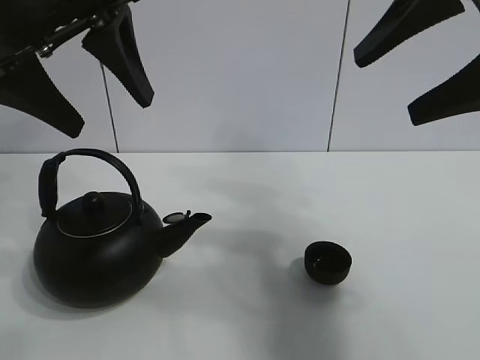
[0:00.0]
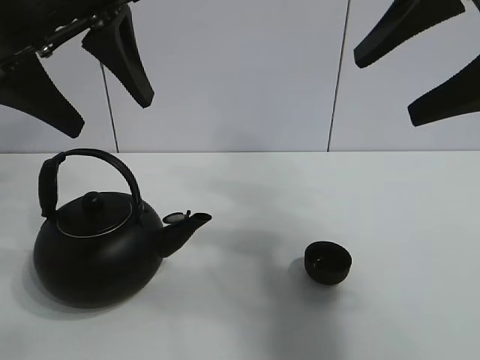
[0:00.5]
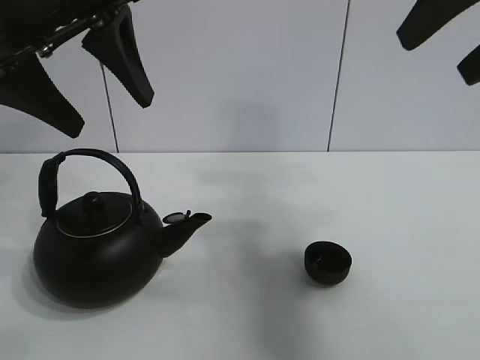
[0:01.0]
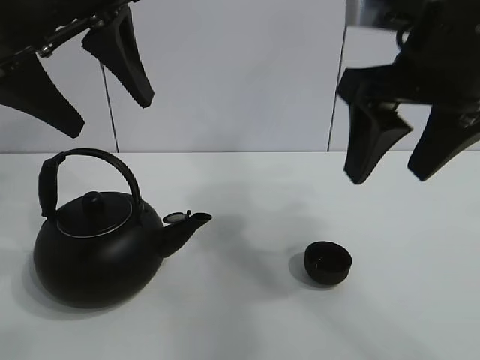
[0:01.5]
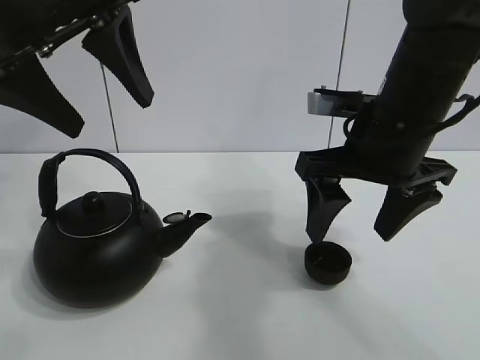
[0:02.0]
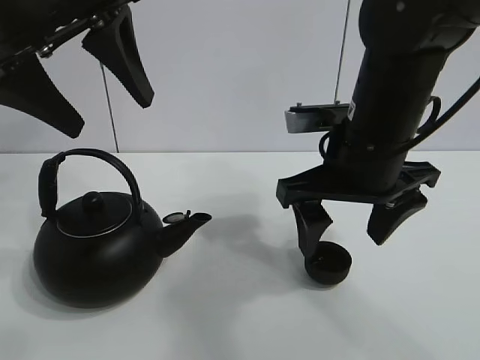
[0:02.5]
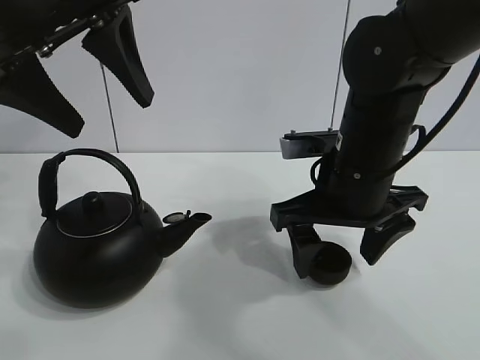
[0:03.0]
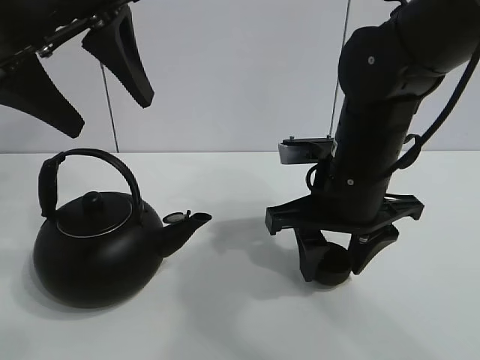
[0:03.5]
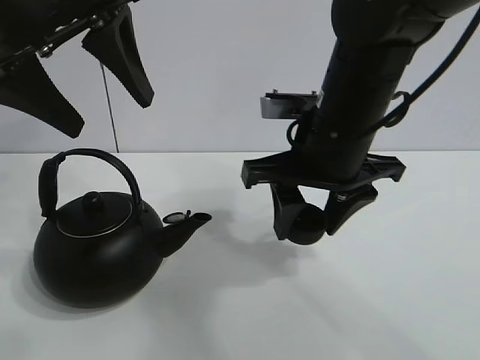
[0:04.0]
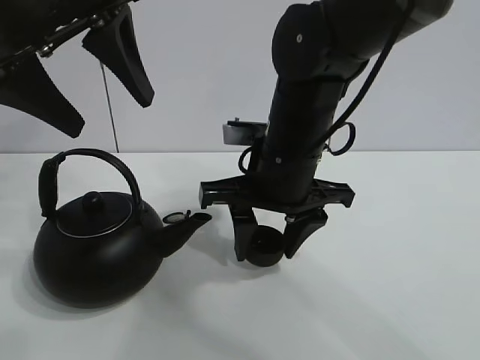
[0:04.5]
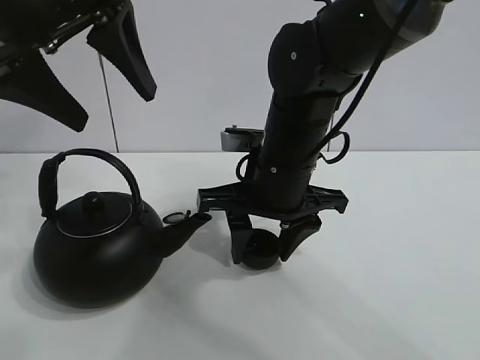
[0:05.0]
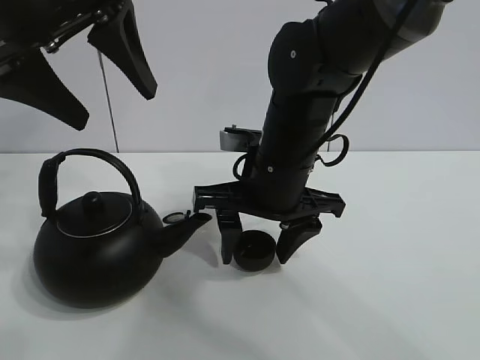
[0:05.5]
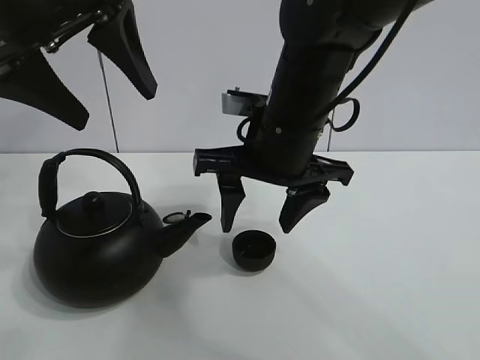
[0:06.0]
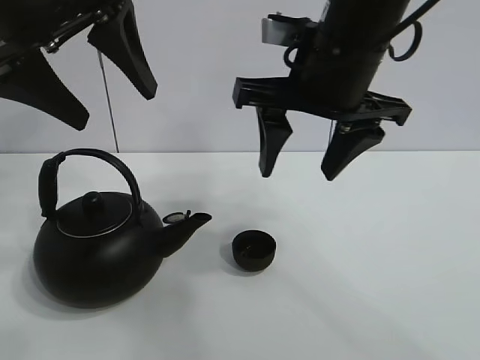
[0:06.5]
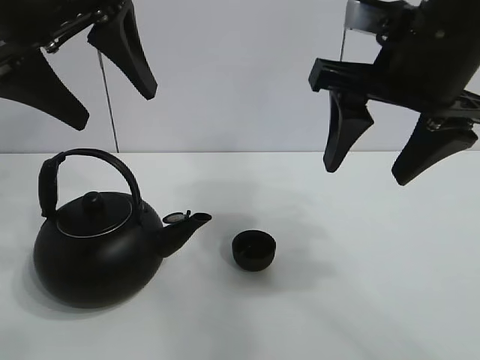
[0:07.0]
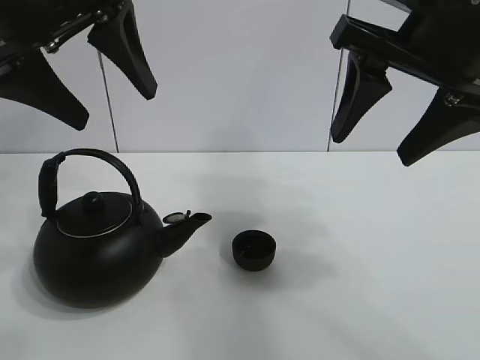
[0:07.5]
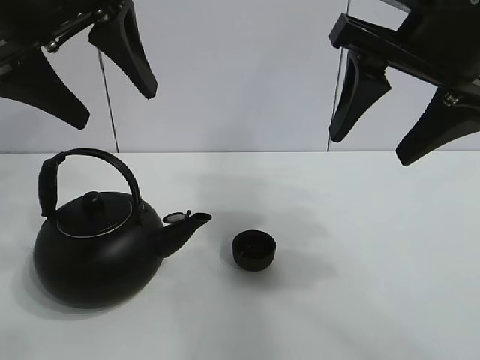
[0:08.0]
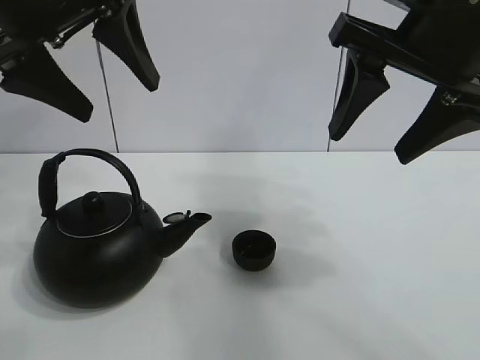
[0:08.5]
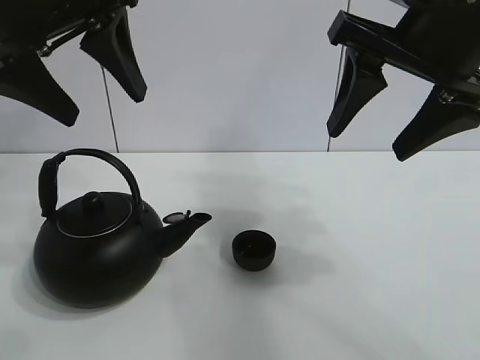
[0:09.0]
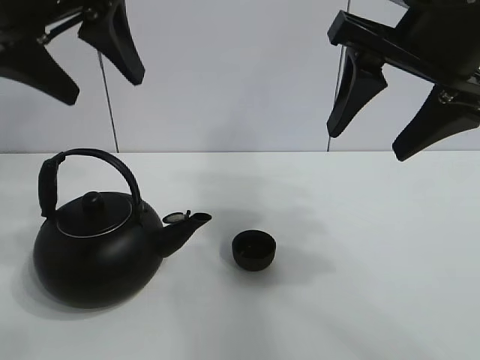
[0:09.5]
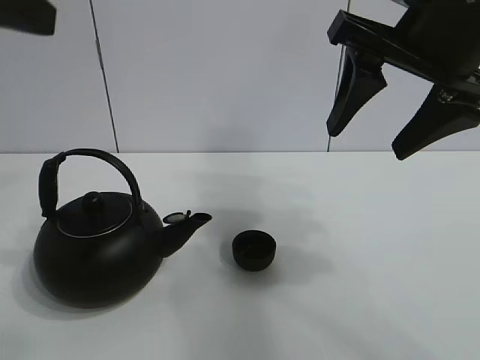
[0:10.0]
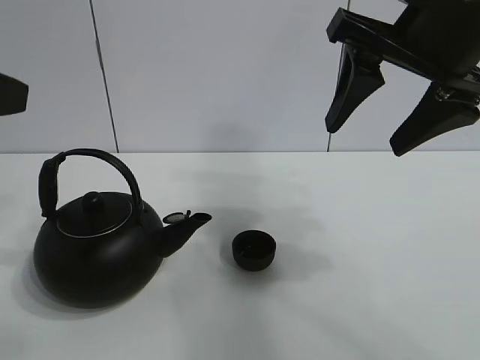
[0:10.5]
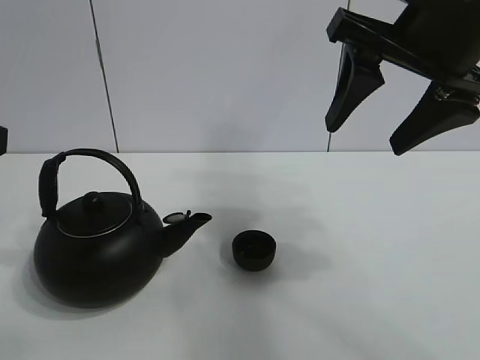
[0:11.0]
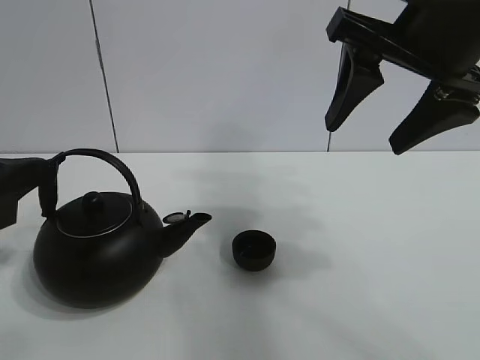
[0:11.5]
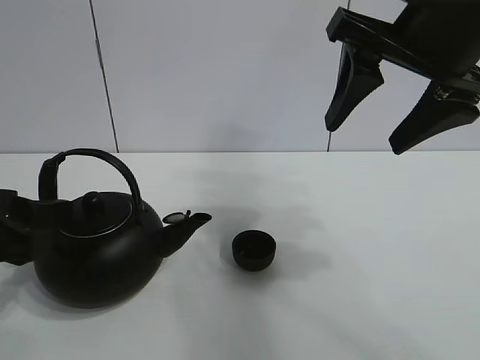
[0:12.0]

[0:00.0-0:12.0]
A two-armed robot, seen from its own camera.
Task of the whole recording: pour tea into the teacup.
Step, 0:00.0 to 0:03.5: Pick up the teacup with the right gripper.
Step, 0:04.0 to 0:05.5: Place the teacup in the center of view with the right gripper.
0:02.0 to 0:04.0: The right gripper travels to the left by roughly 5 cm, and closes up.
0:04.0 to 0:06.0: The right gripper opens its fingers.
0:06.0 to 0:08.0: The right gripper travels to the right, upward and backward by approximately 15 cm.
0:08.0 to 0:10.0: The left gripper moves backward and to the left, some 10 cm.
0:10.0 to 0:12.0: The left gripper goes some 20 cm downward.

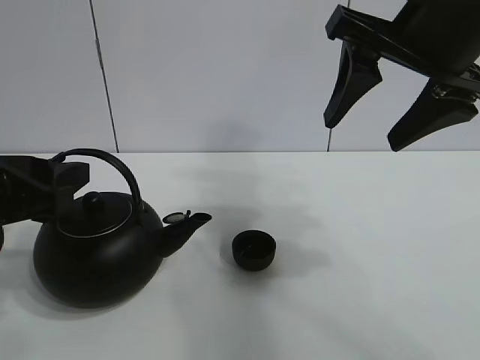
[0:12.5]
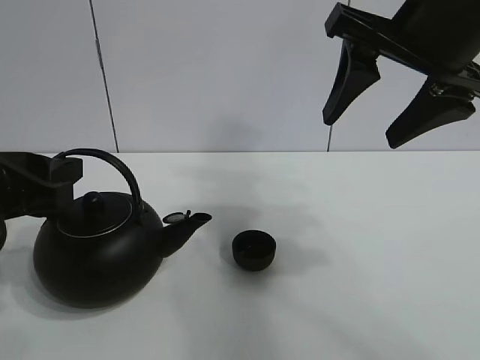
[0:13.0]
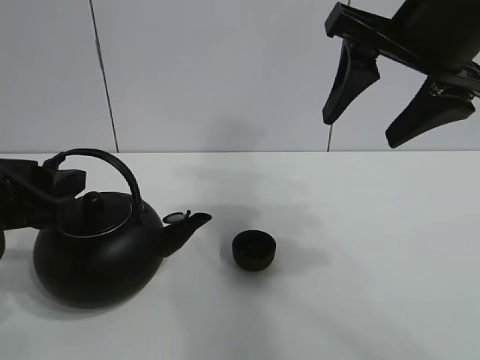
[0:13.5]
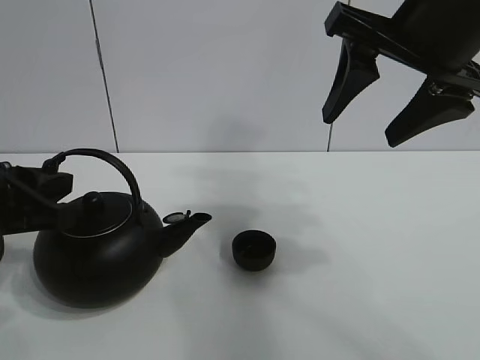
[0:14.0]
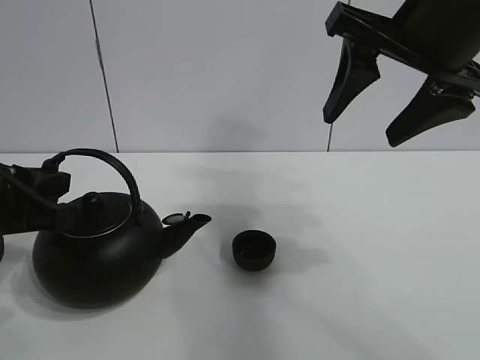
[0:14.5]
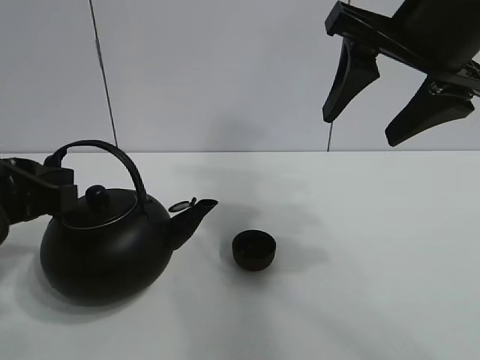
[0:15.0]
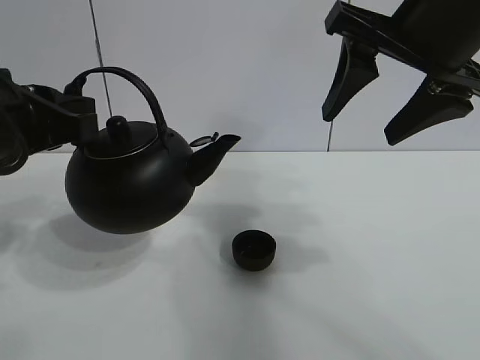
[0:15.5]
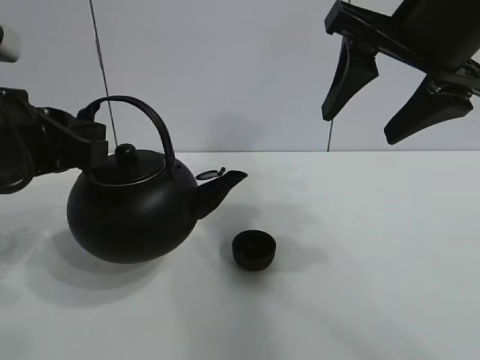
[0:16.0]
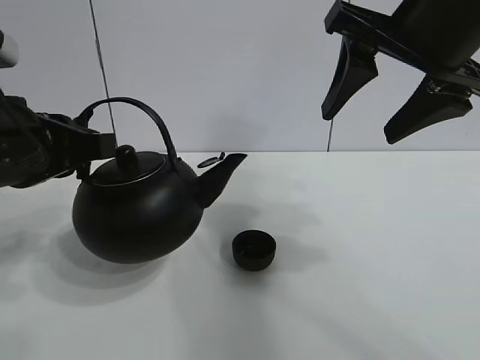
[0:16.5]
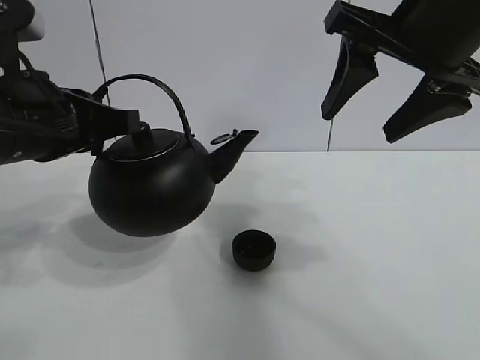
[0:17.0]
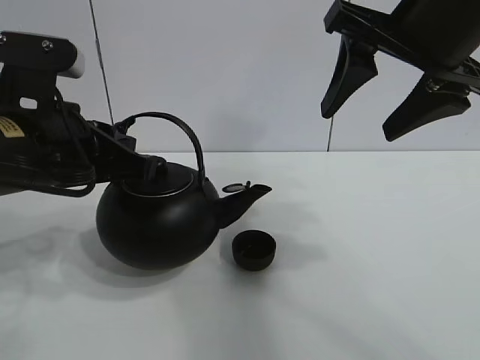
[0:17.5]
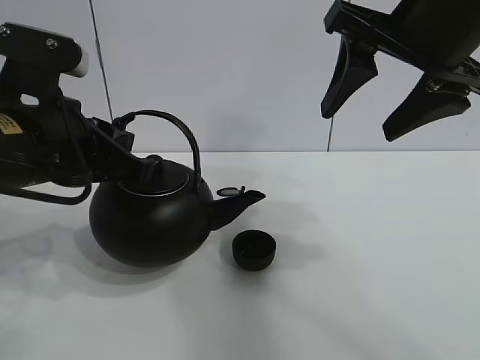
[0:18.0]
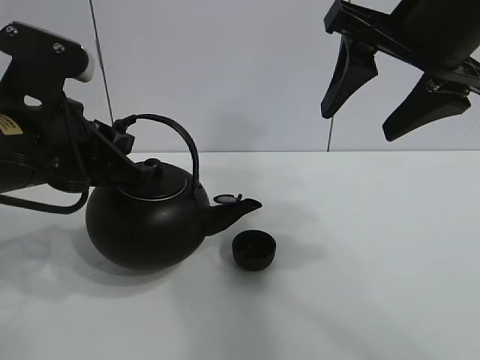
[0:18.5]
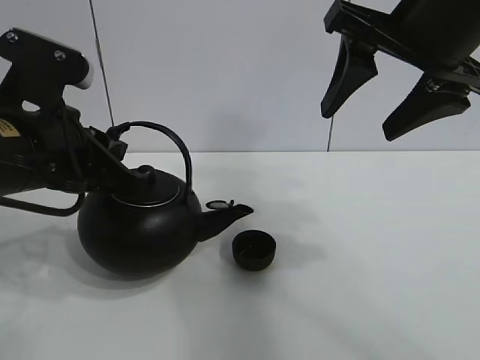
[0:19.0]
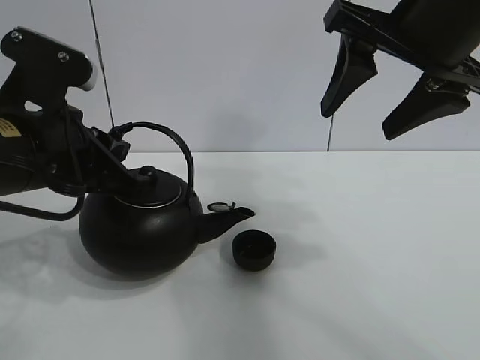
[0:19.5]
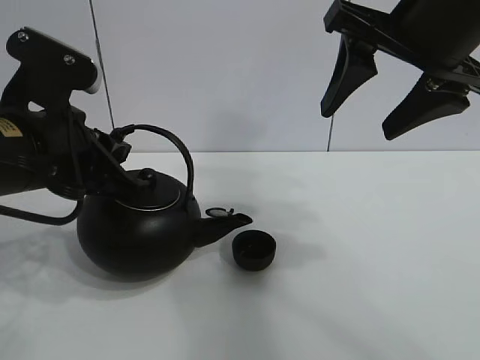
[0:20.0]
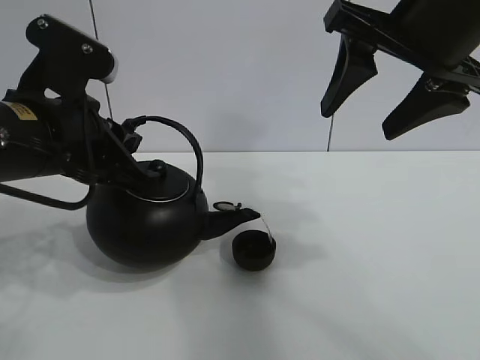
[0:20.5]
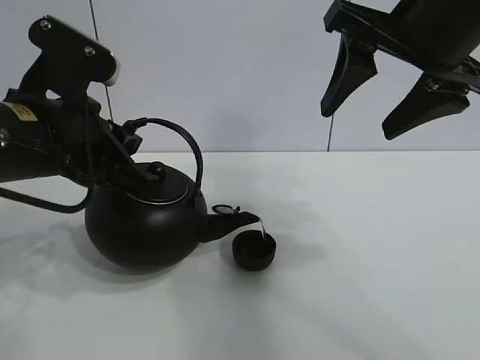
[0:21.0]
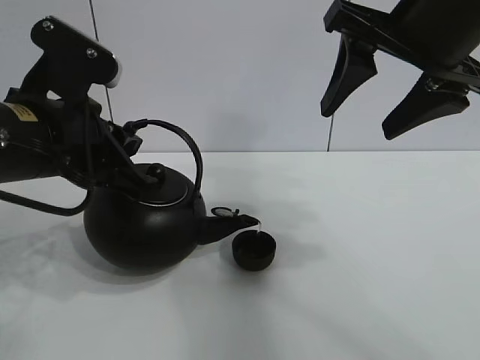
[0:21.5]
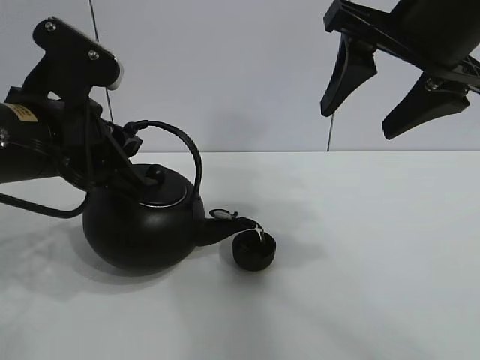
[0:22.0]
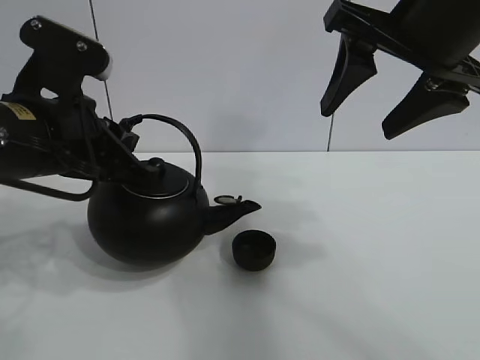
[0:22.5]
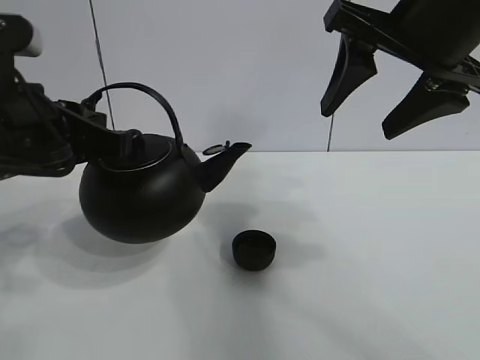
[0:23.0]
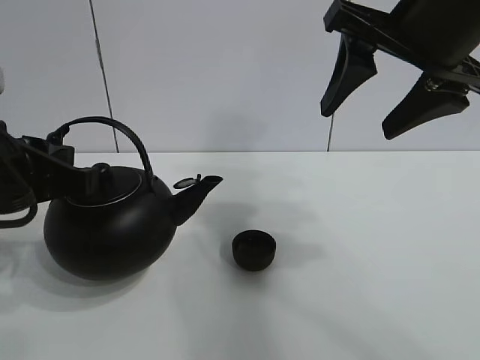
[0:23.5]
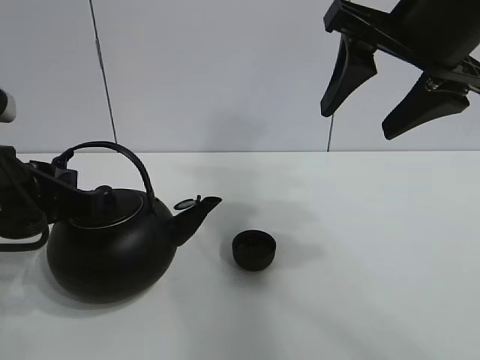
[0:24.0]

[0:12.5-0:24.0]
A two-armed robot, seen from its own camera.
Task of the whole recording: pour tea into the teacup.
Step, 0:12.5 to 0:15.0: Pick up the teapot with the left gripper.
Step, 0:15.5 to 0:22.0: Pour tea into the teacup with the left gripper.
0:12.5 to 0:14.5: The left gripper closes up.
0:14.5 to 0:16.5: The left gripper moves approximately 5 cm.
0:18.5 to 0:22.0: The grippers make only small movements.
0:22.0 to 0:24.0: The left gripper moves roughly 5 cm.

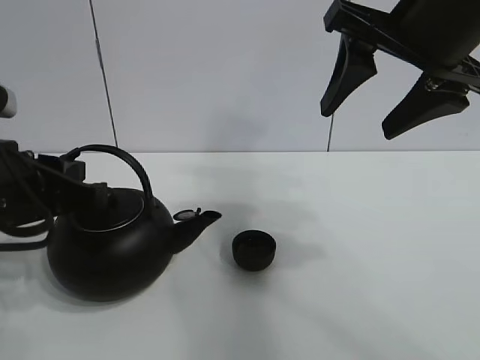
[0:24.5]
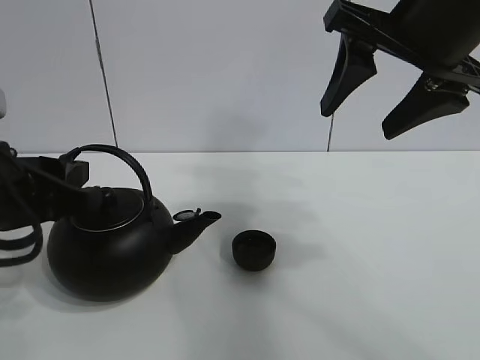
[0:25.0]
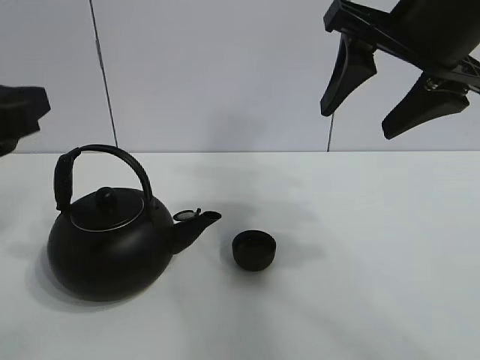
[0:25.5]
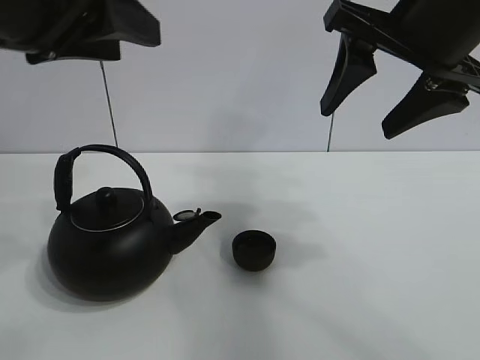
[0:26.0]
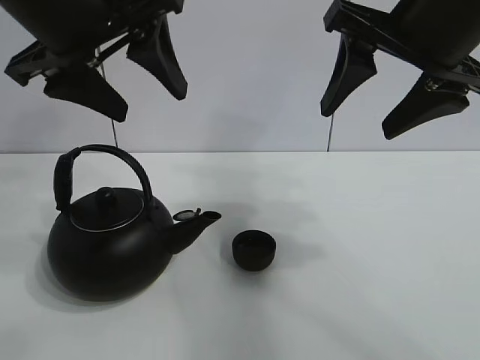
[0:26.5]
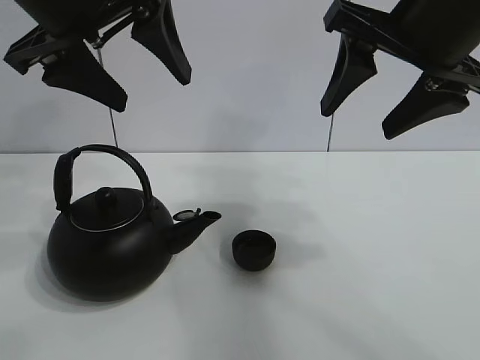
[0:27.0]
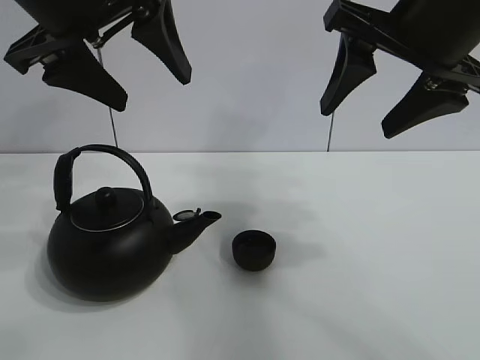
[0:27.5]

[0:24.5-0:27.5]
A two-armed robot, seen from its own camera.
Task of the whole recording: pour tea into the teacup.
0:24.5 to 0:26.0: The left gripper goes approximately 15 cm upward, and opens its fingers.
0:26.0 to 0:27.5: The left gripper travels forward by some 5 cm, and opens its fingers.
